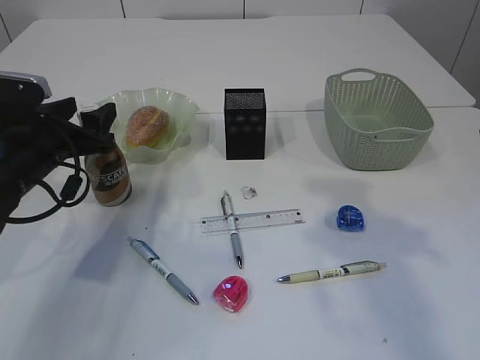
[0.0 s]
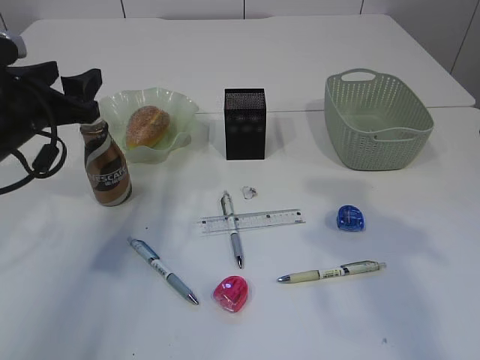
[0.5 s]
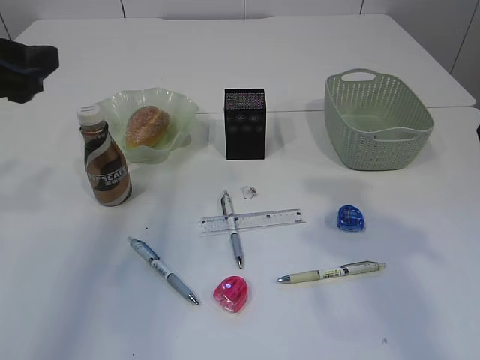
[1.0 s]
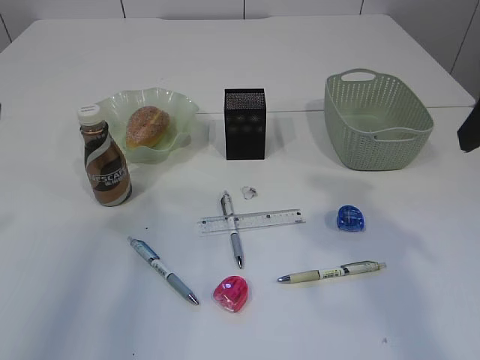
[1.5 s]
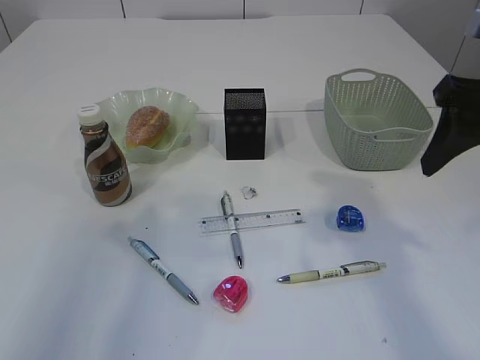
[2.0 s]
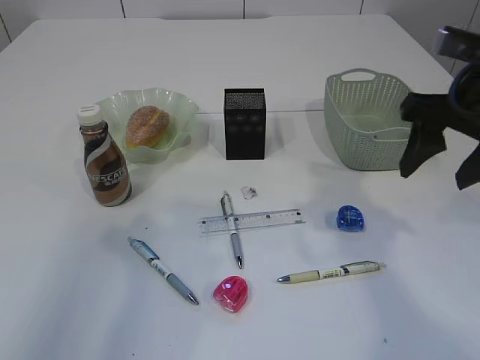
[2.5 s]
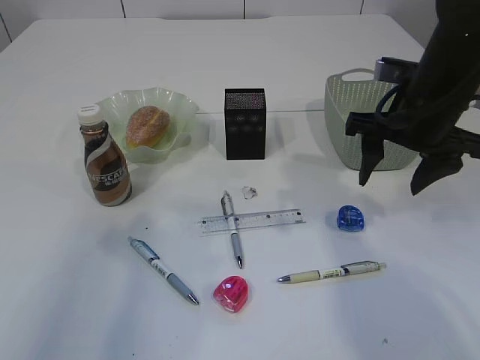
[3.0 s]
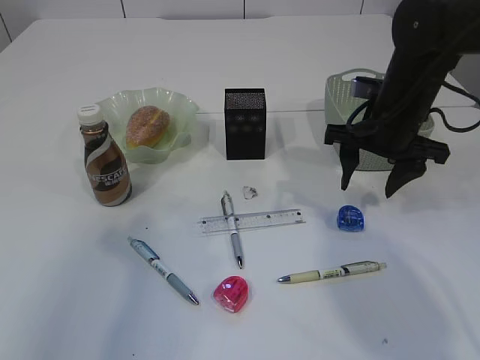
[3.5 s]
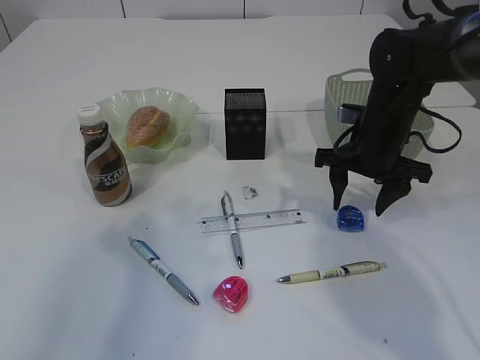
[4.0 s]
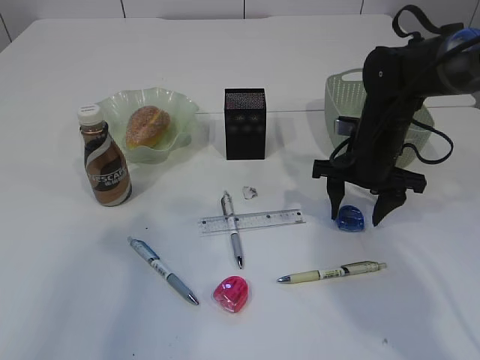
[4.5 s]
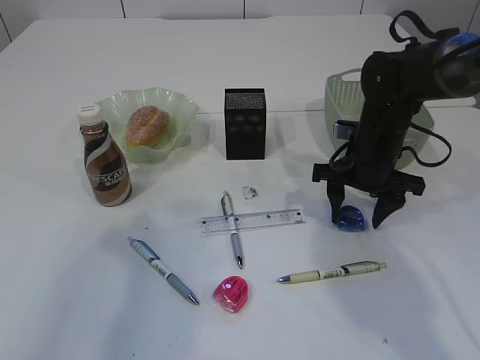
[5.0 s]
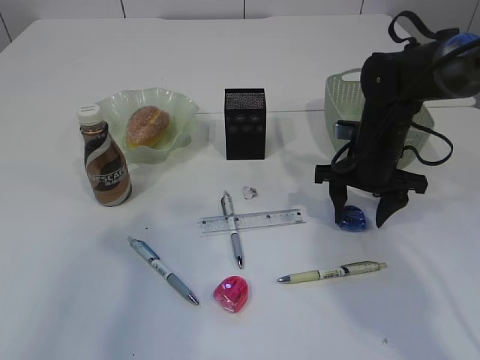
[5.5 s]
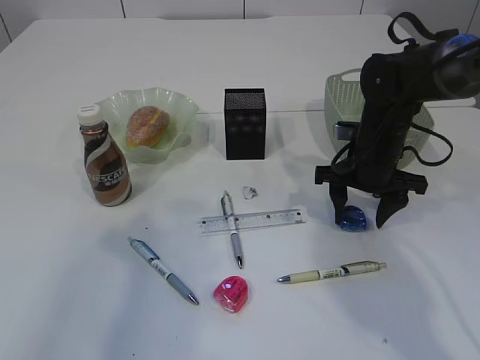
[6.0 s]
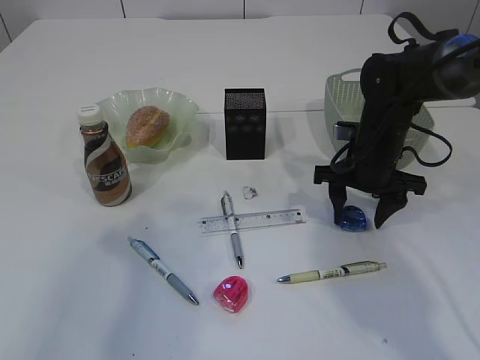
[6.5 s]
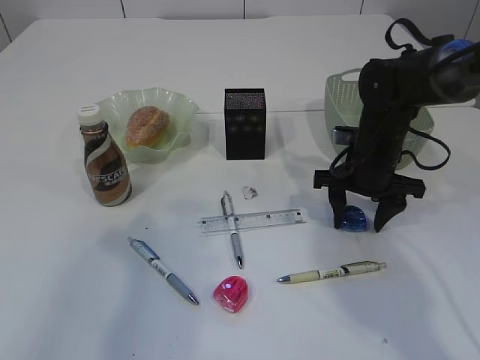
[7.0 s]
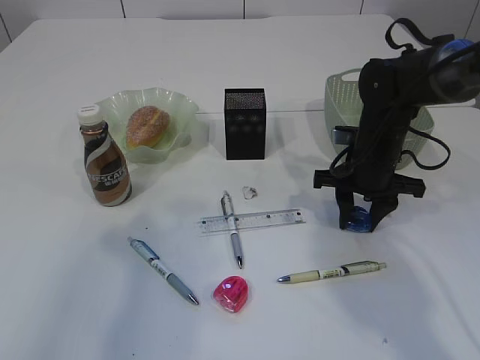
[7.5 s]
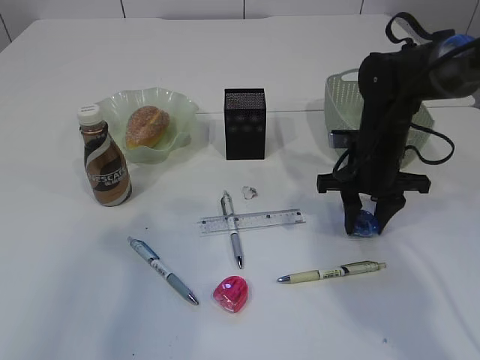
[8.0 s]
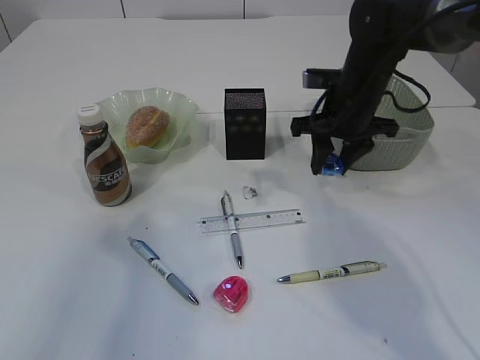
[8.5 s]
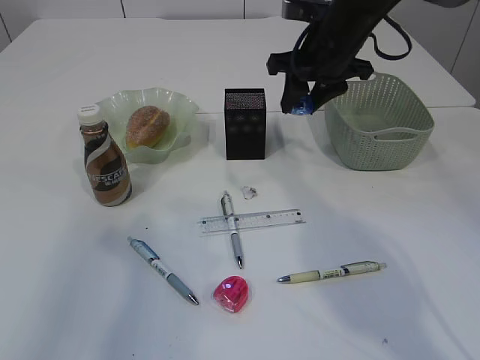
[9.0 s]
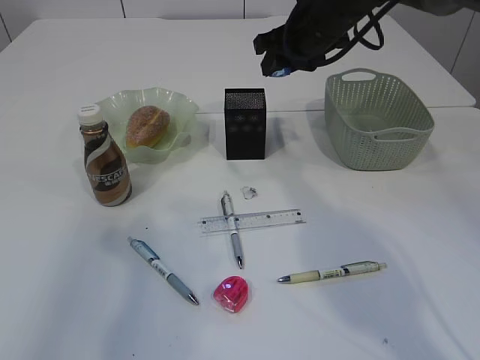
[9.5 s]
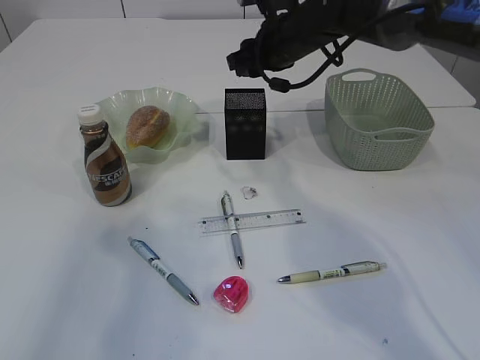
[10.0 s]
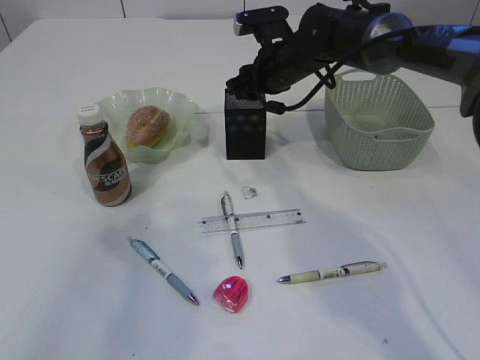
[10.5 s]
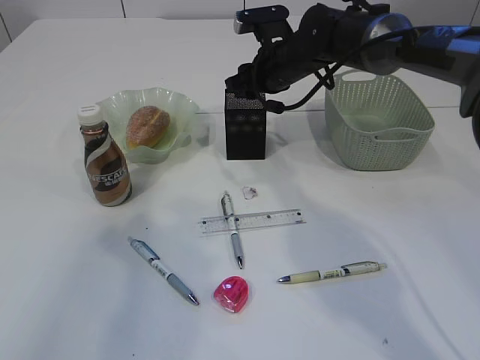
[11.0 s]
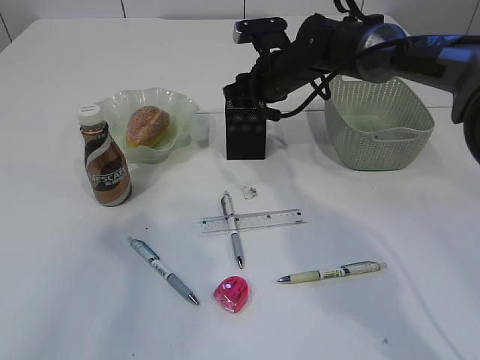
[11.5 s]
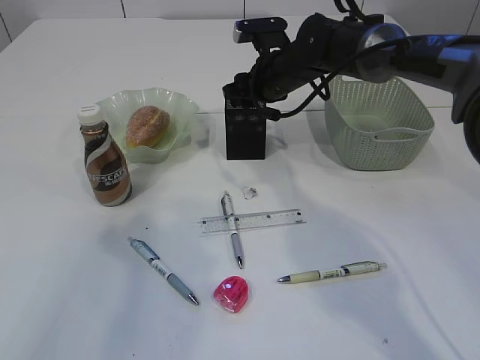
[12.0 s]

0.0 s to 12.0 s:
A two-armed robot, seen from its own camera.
Step, 0.5 to 8.5 s: Pick up the red pencil sharpener.
0.0 to 2.0 s: The left gripper moves upward and backward, approximately 25 cm, while the right gripper shifts by about 5 cm.
2.0 to 4.0 s: The right gripper is displaced downward and forward by approximately 20 cm.
4.0 to 6.0 s: There are only small adjustments of the grippers.
6.0 to 8.0 s: The right gripper closes up.
8.0 to 10.0 s: The right gripper heads upward, forward and to the left, covering about 20 cm.
10.0 to 12.0 s: The right gripper travels downward by some 5 cm.

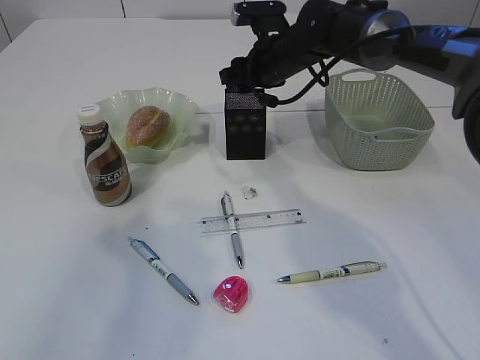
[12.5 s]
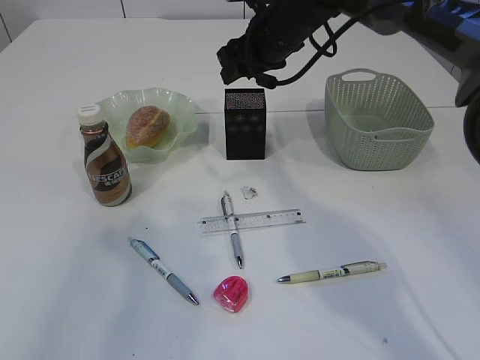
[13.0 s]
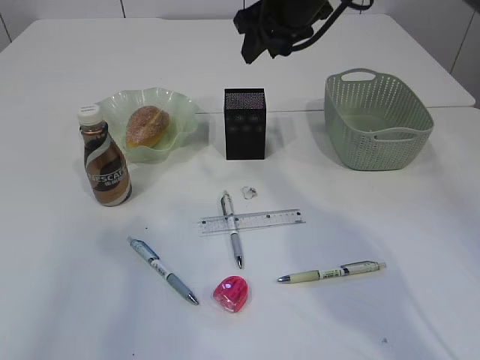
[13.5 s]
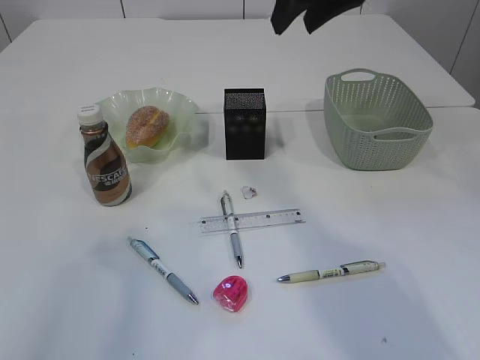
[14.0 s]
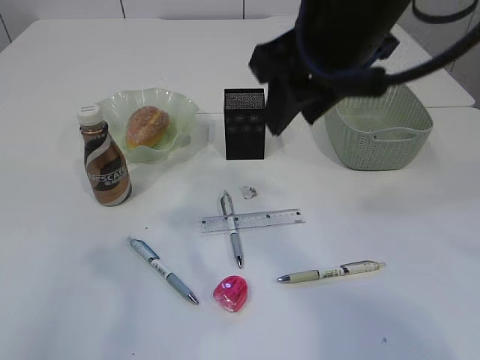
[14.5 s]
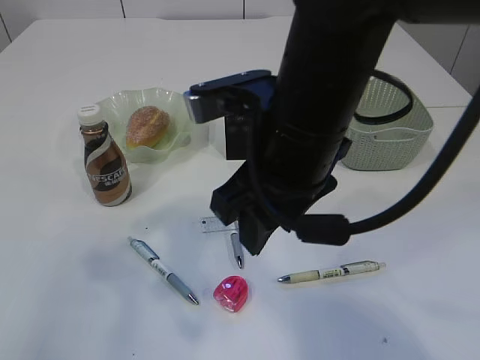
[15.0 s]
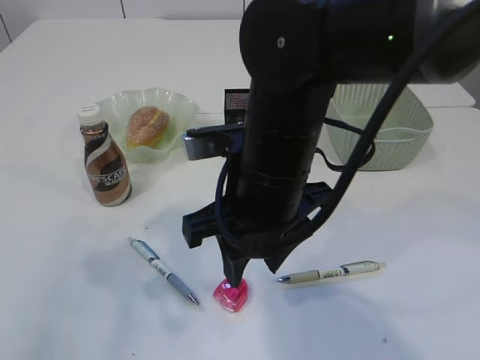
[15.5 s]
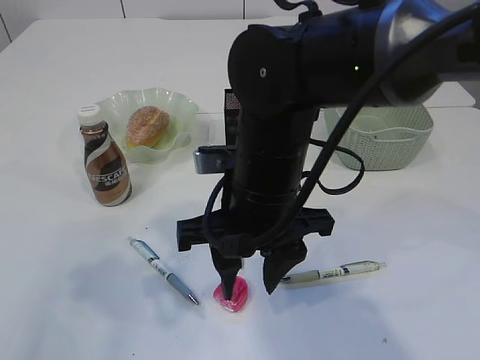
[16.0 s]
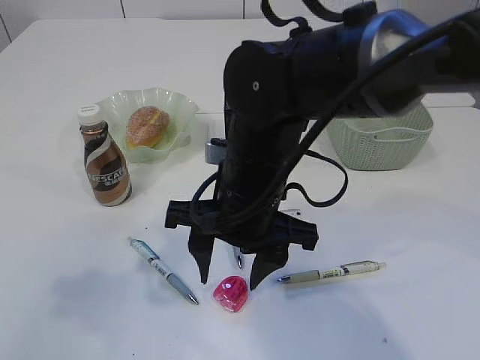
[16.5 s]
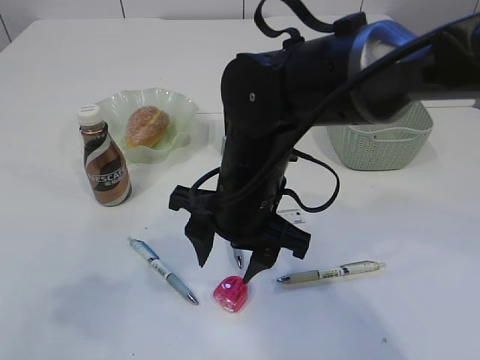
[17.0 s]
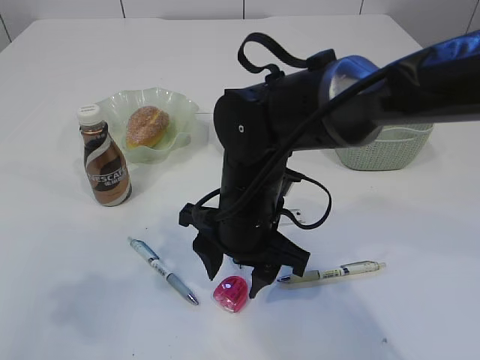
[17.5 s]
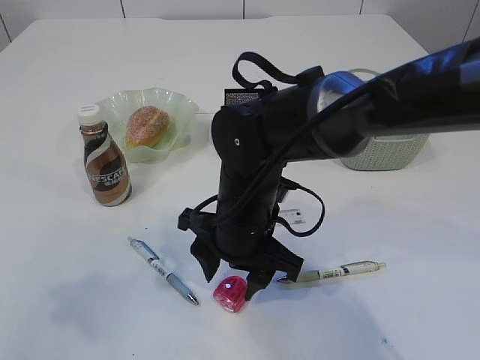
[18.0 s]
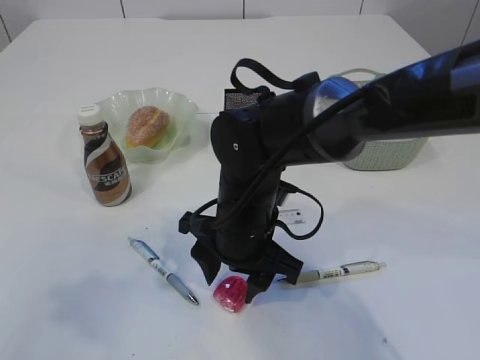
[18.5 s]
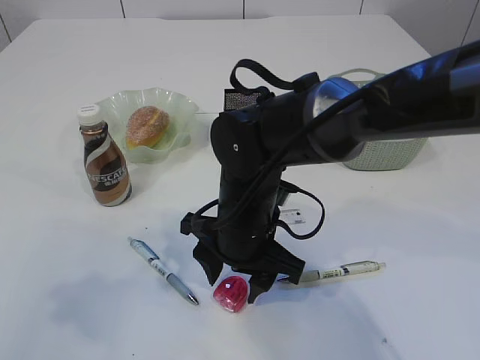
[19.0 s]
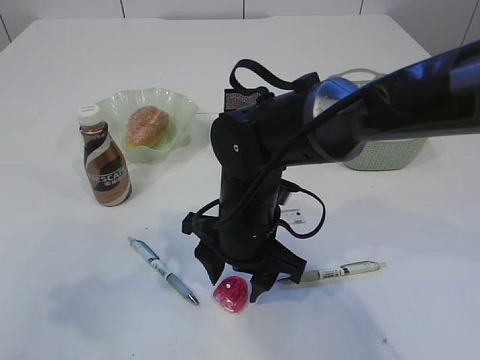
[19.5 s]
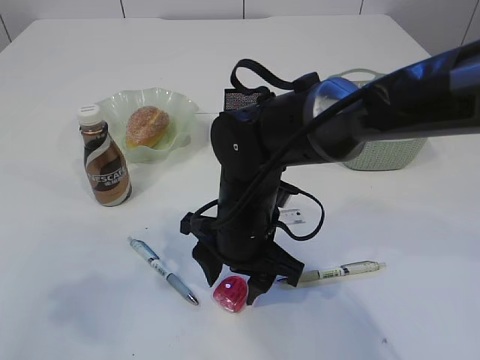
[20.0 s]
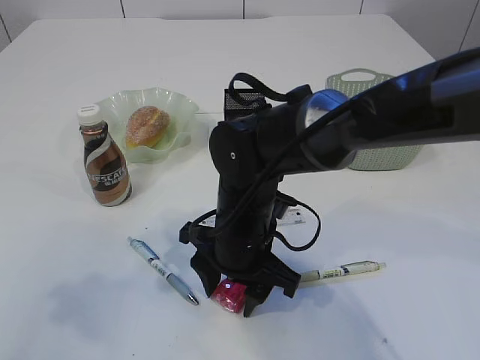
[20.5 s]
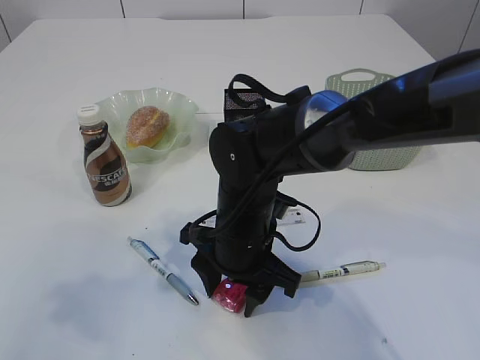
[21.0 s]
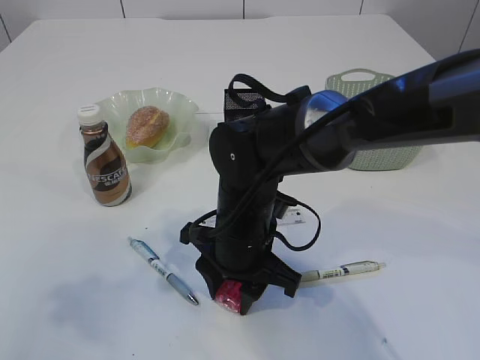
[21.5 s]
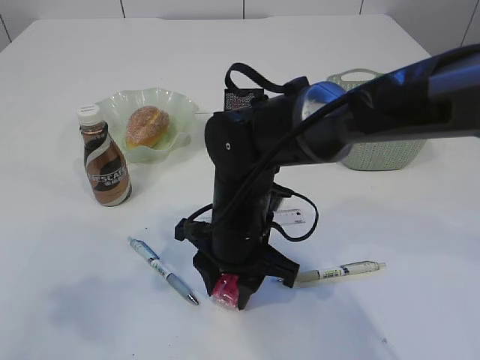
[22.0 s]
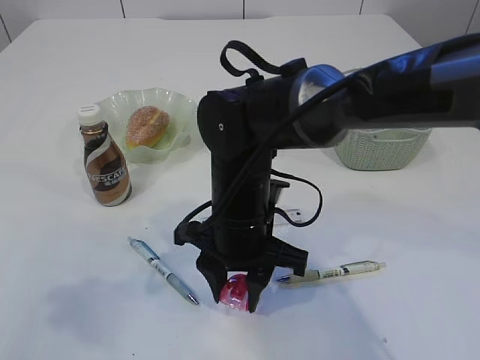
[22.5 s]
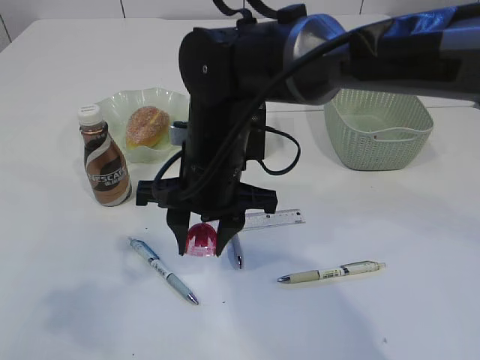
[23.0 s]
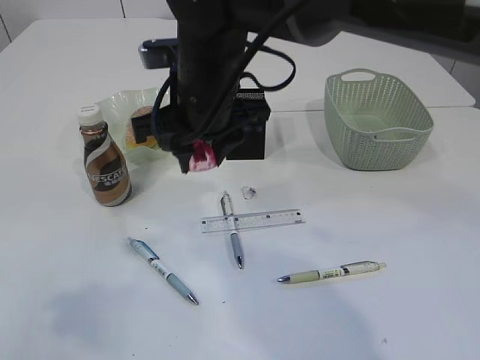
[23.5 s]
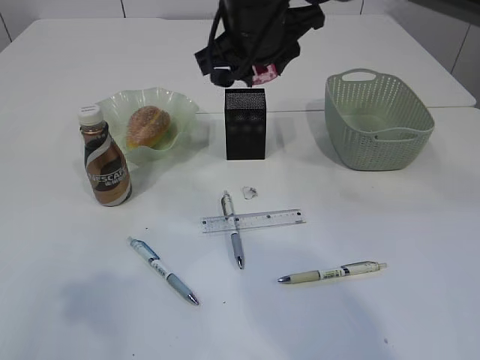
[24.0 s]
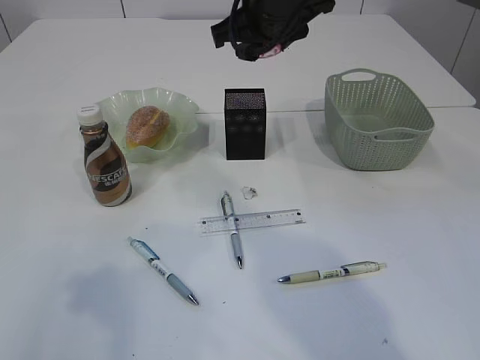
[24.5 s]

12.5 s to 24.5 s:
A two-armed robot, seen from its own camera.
Step, 14.0 to 23.0 s: Pick up the blue pencil sharpener.
12.5 to 14.5 s: The right gripper shifts approximately 25 cm backward and upward.
14.5 to 16.5 s: The right gripper is displaced downward and to the left by about 15 cm.
16.5 to 18.5 s: The right gripper travels downward by some 5 cm.
18.5 to 20.5 s: Both grippers stay about where they are.
20.5 to 22.5 s: There are only small adjustments of the grippers.
22.5 to 24.5 s: The right gripper is displaced upward and forward by roughly 20 cm.

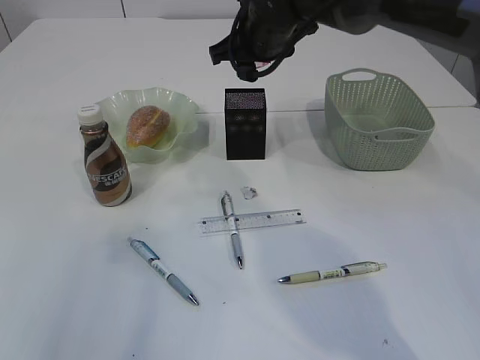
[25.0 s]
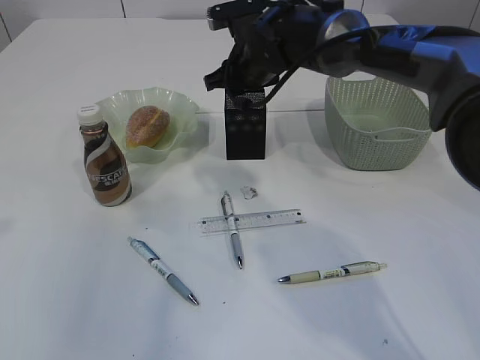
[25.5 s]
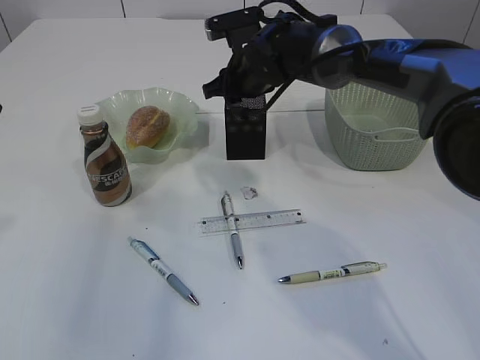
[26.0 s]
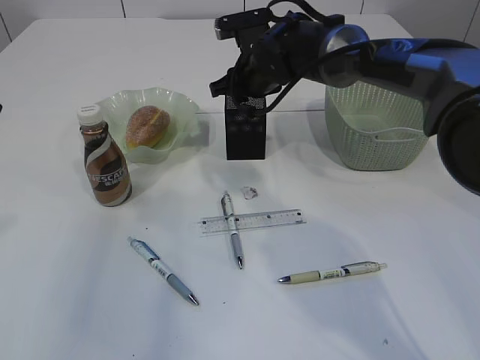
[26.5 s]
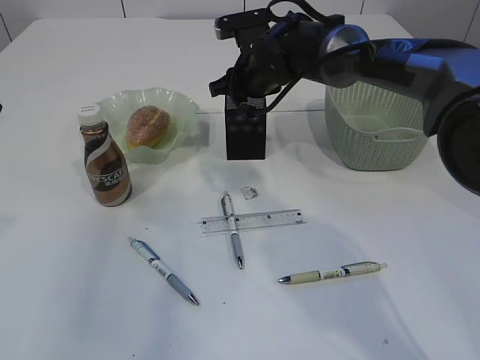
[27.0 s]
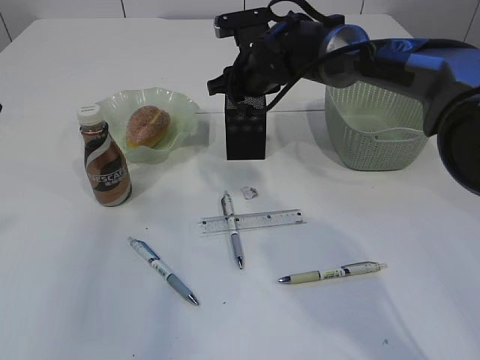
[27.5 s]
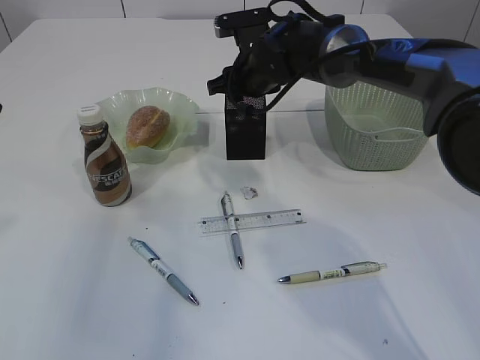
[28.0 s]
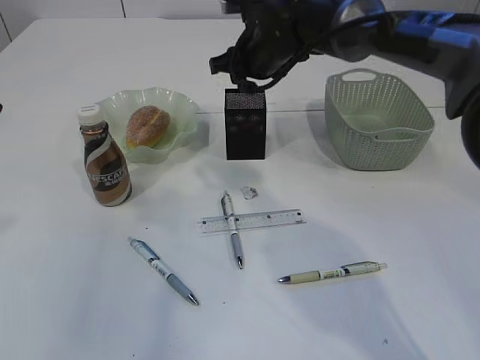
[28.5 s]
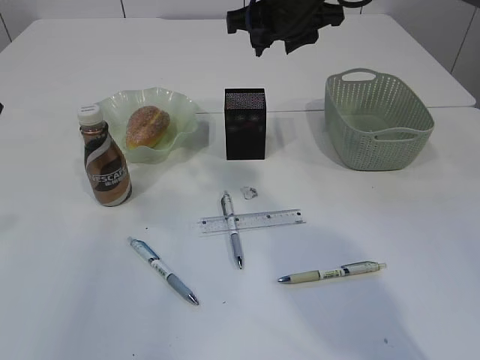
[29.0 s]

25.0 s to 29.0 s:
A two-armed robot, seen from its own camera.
25.0 to 27.0 s: The right gripper is displaced downward by approximately 10 cm, while the left gripper changes place by about 5 cm.
27.0 to 29.0 s: The right gripper is displaced upward by about 10 cm.
